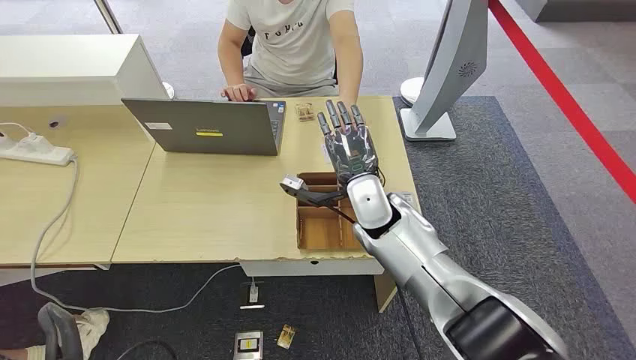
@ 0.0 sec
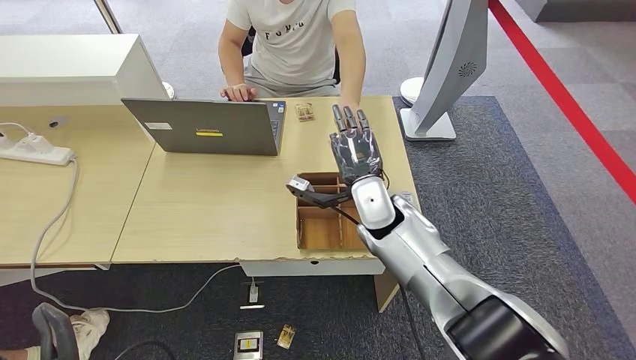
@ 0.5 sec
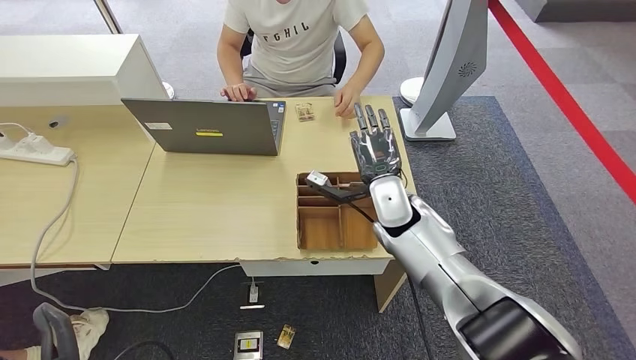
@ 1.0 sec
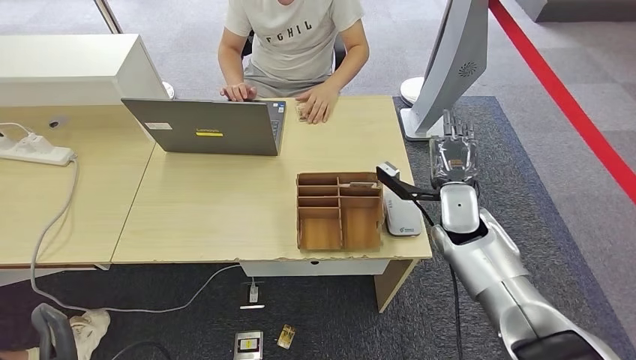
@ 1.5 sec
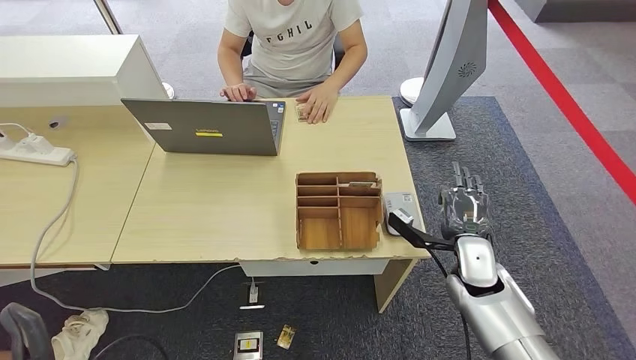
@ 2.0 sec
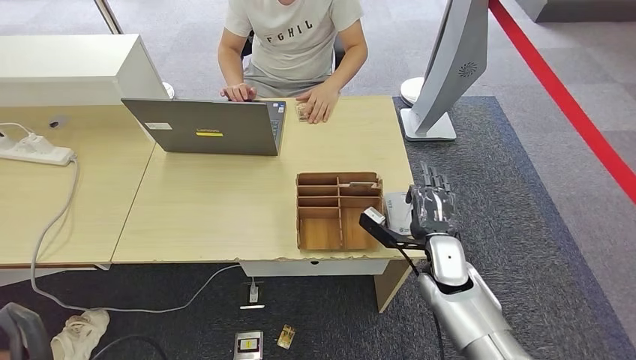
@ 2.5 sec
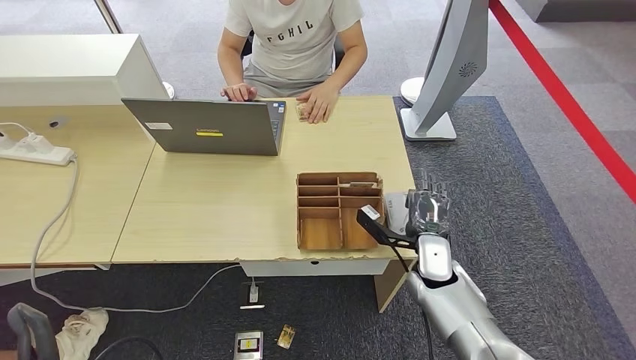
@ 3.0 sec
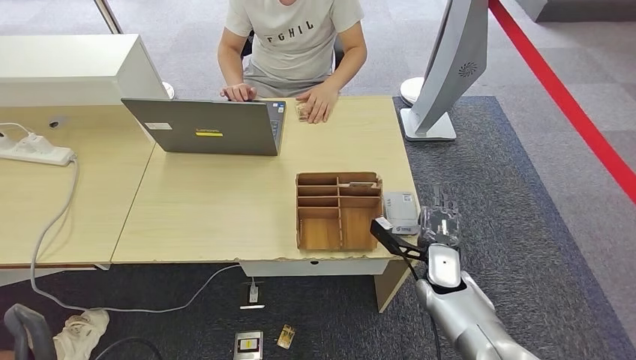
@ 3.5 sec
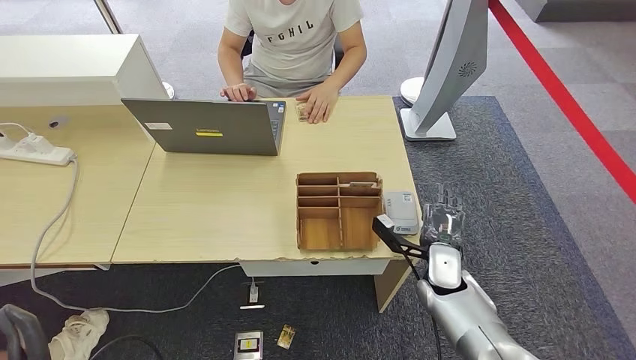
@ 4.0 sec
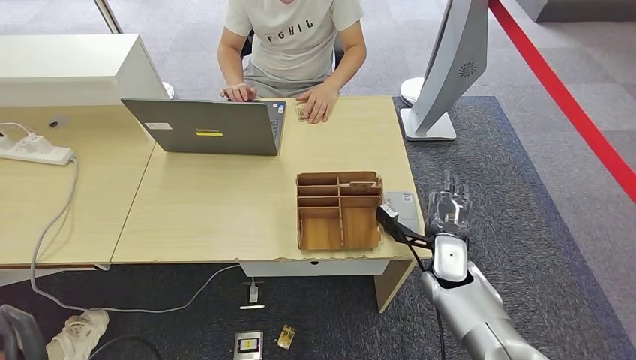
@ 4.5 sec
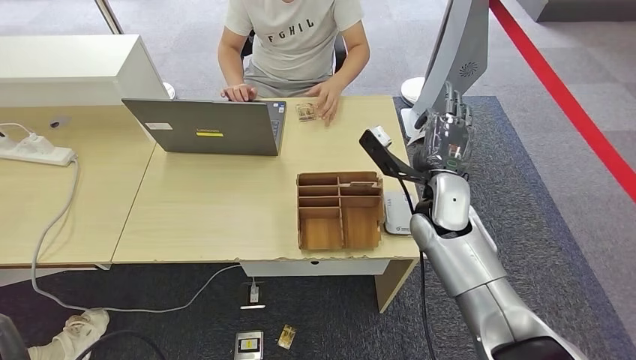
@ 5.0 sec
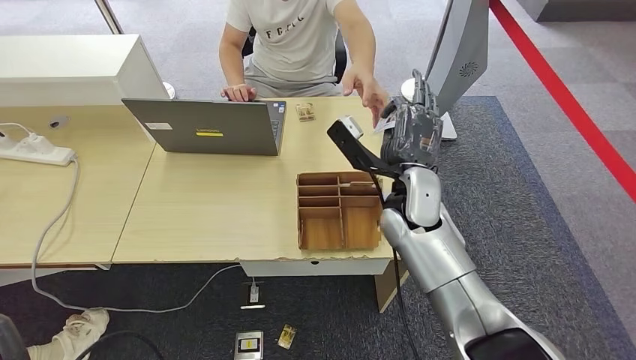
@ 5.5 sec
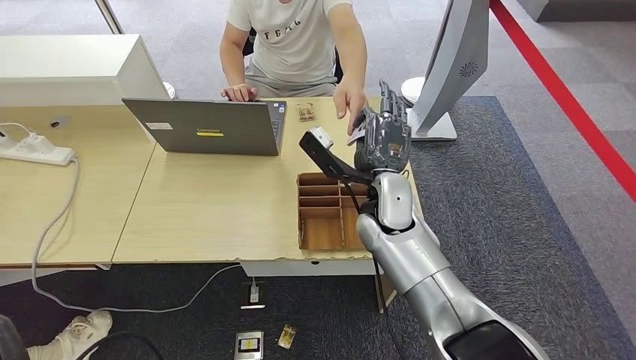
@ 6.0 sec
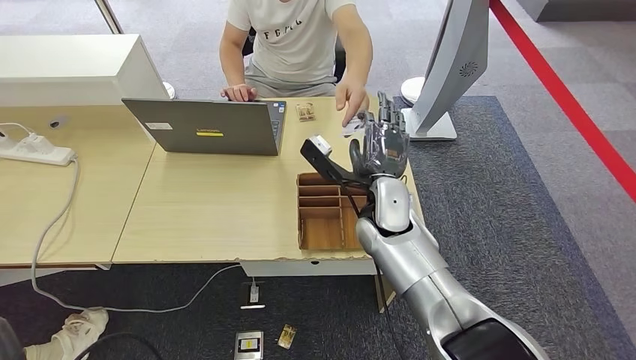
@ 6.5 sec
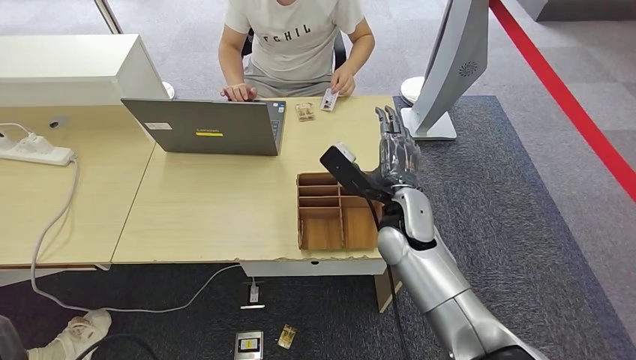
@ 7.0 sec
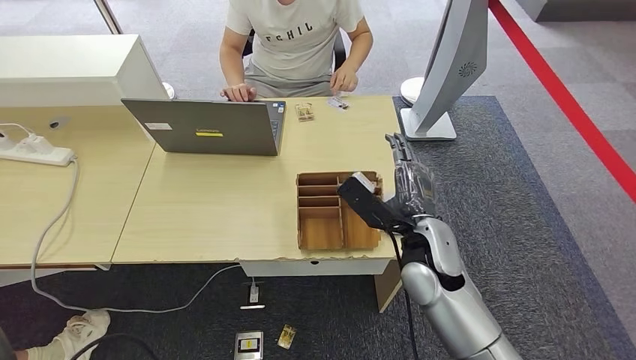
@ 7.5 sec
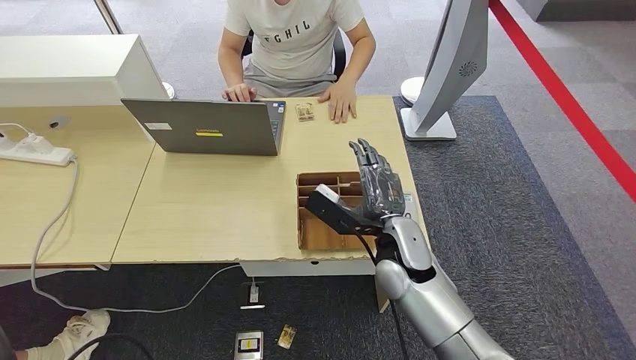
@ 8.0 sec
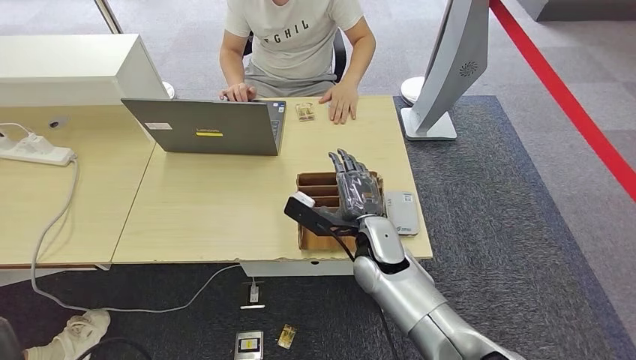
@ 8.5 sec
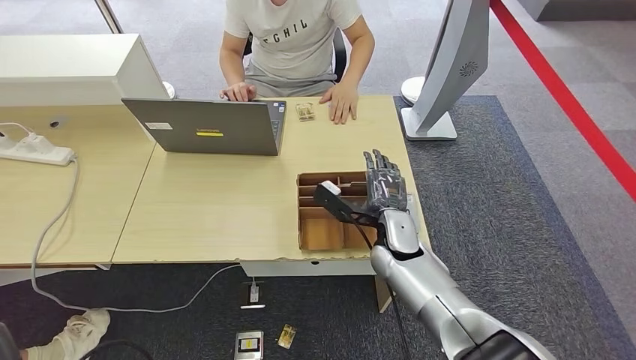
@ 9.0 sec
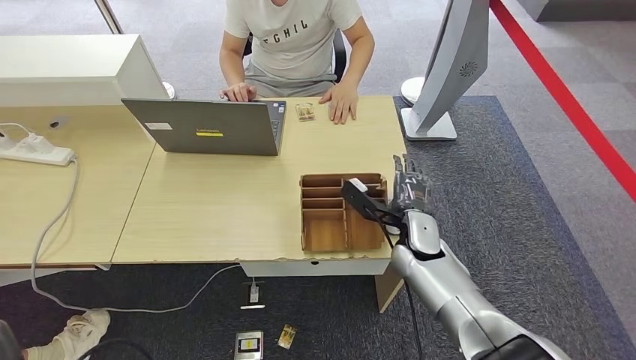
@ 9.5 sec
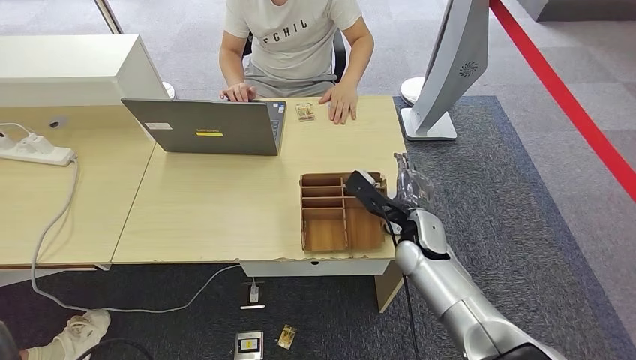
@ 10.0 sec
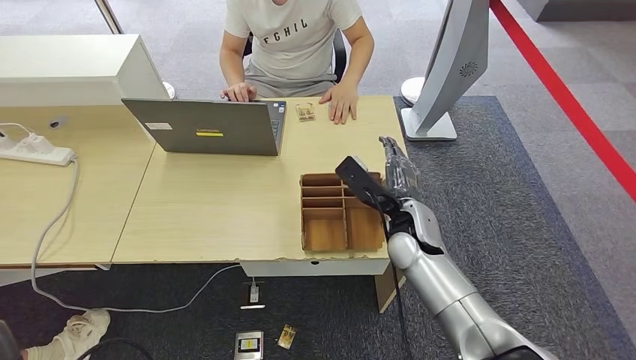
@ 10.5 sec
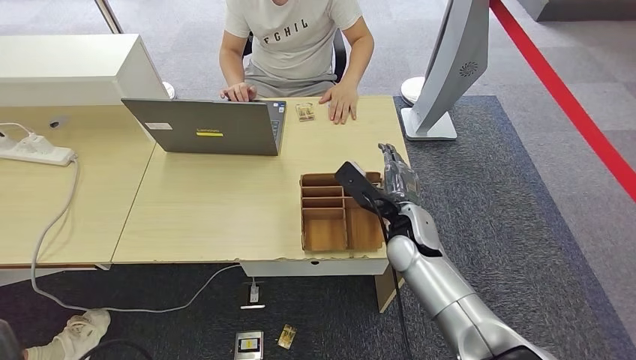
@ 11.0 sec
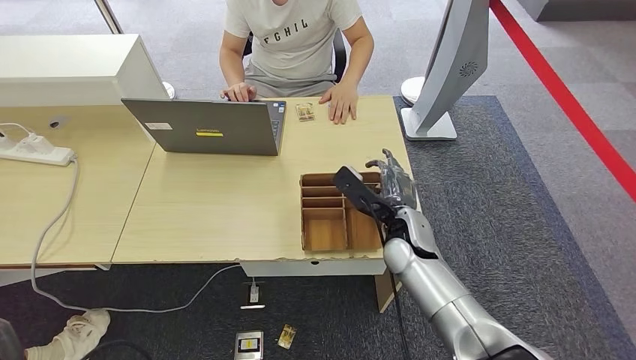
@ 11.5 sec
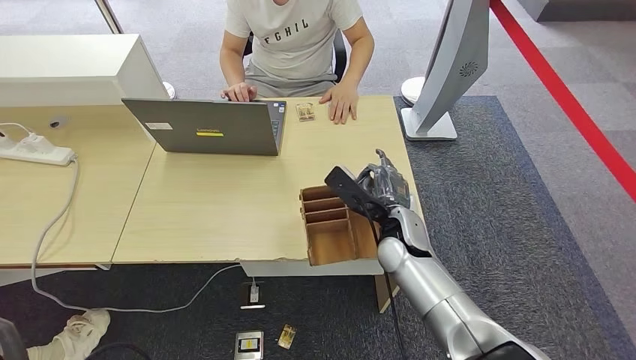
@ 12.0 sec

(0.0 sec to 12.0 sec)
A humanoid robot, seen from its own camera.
Step, 0.0 sec - 1.5 sec: Take the ID card from the person's hand.
Step, 2.0 sec - 5.0 sec: Place the ID card on the card reader.
Step, 5.5 sec - 7.0 sec: Hand the ID card to the person.
2.0 sec - 4.0 sec: The right hand moves approximately 5 cm.
4.0 sec - 6.0 sec: The right hand moves upward and to the left, about 20 cm.
6.0 sec - 8.0 sec: The right hand moves backward, approximately 5 cm.
8.0 sec - 10.0 sec: The right hand is displaced to the right by about 5 cm.
10.0 sec - 12.0 sec: The hands make only small movements.

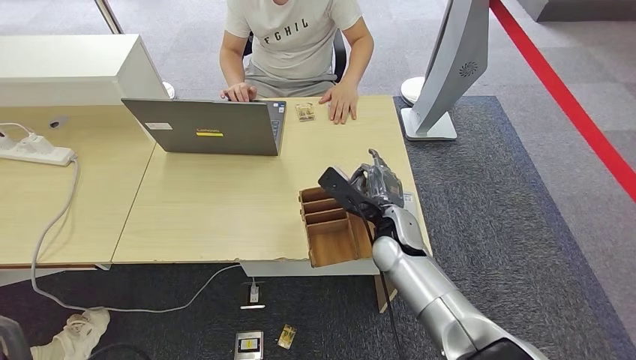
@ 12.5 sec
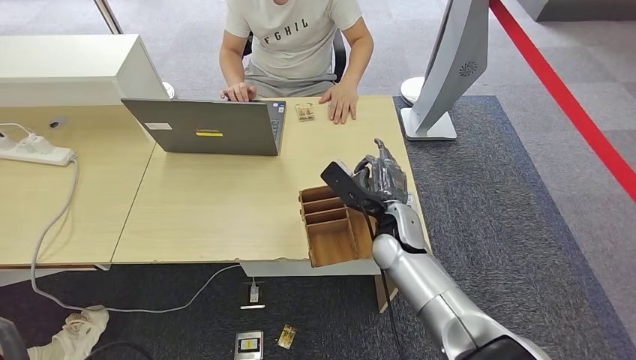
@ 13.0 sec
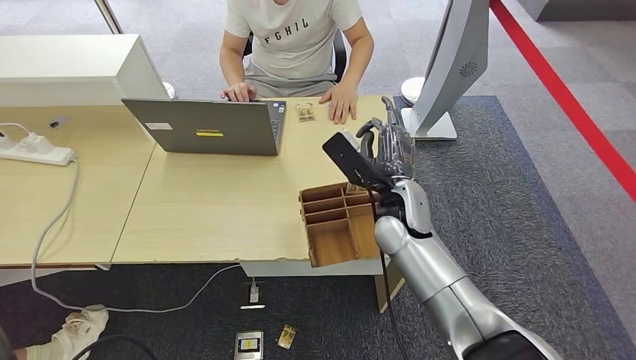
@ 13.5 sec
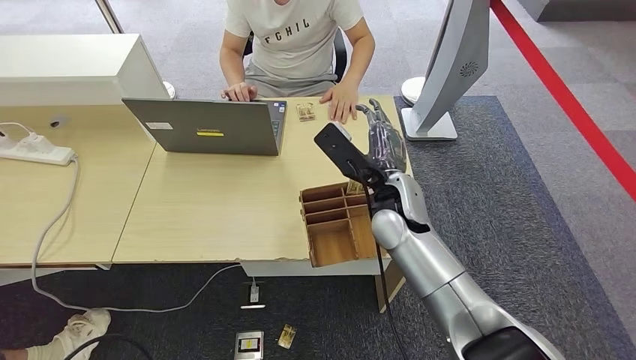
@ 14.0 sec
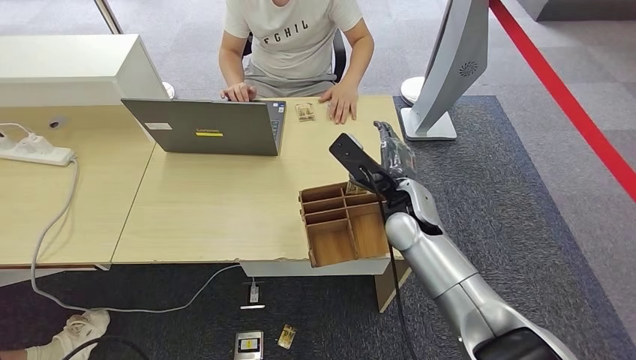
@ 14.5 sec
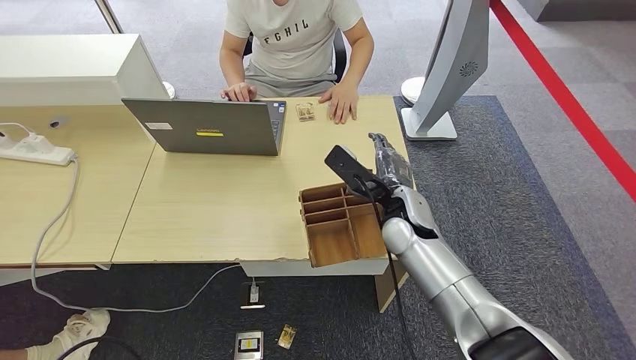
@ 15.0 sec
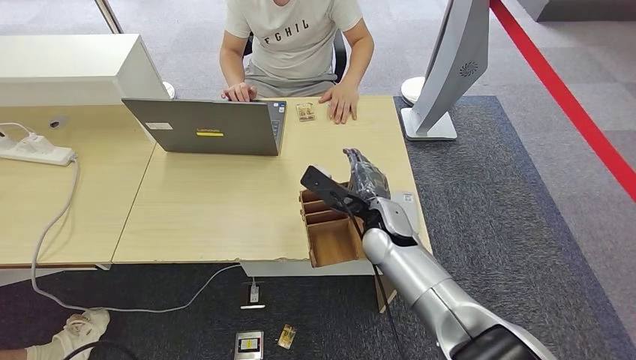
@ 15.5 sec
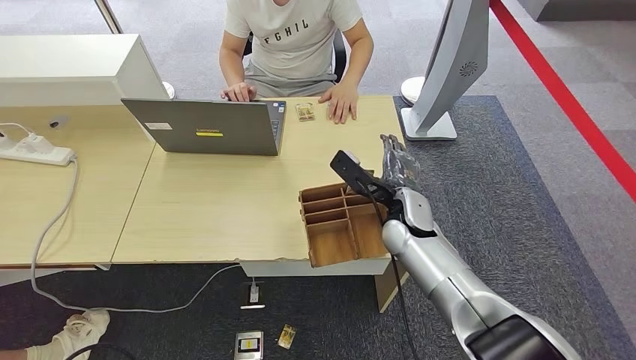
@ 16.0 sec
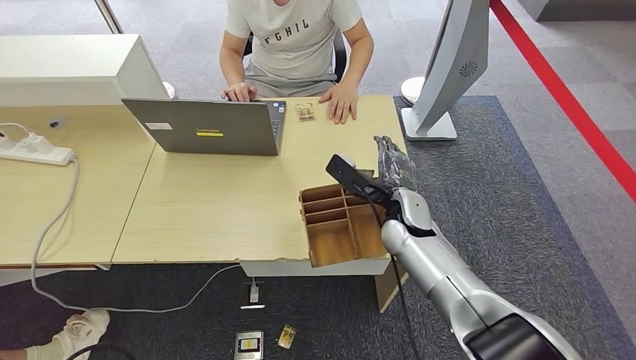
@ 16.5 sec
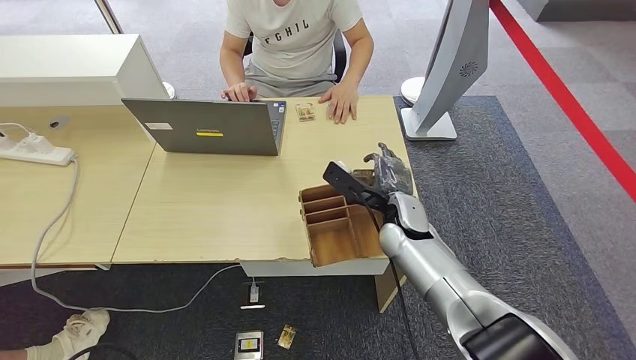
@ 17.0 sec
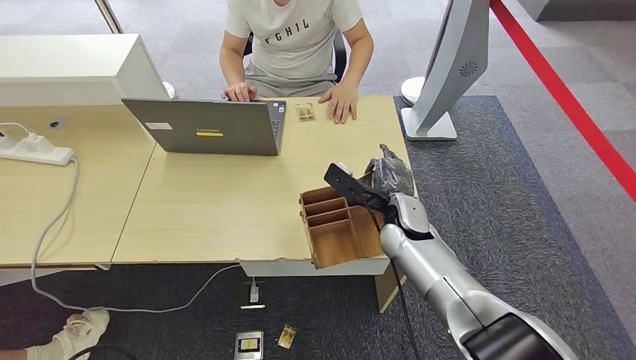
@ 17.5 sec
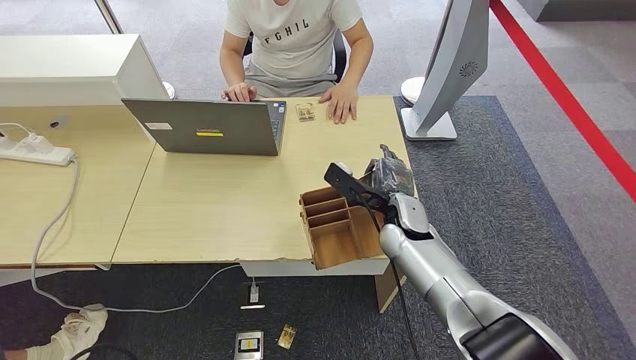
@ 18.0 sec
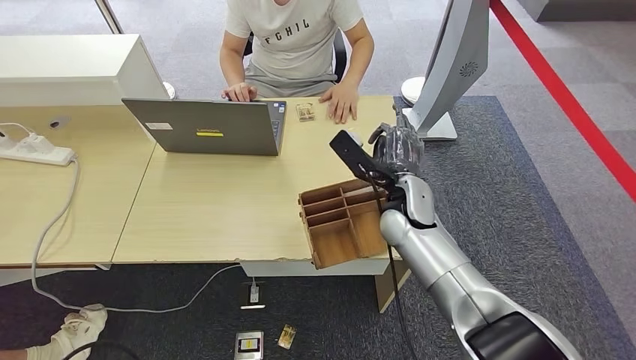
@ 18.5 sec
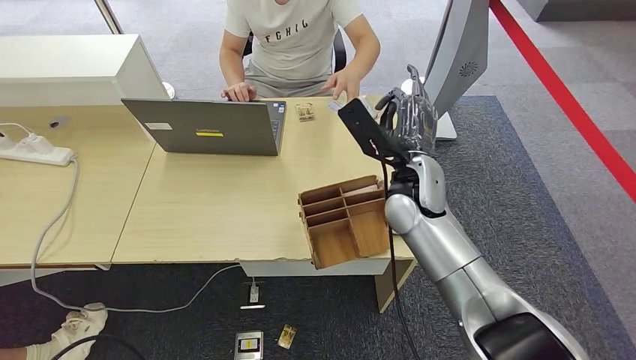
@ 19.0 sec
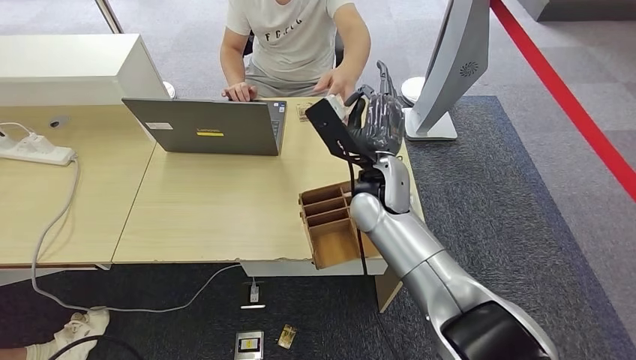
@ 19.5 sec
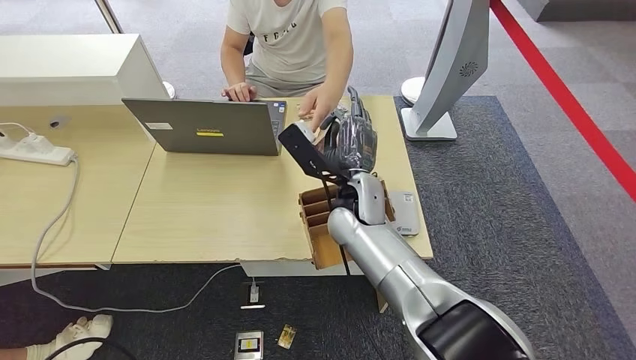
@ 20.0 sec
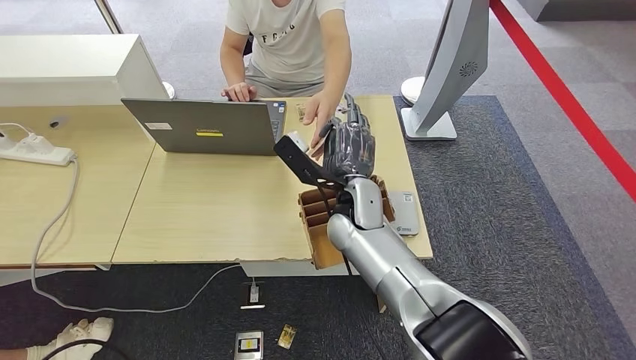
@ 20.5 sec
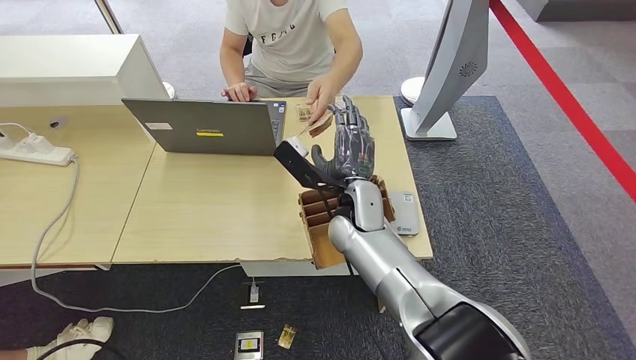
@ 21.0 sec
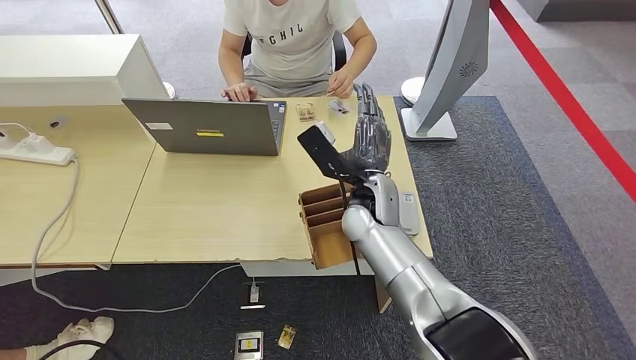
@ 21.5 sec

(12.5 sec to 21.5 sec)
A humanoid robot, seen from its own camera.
Step, 18.0 sec - 19.0 sec: Pick up the room key from the key card box.
Step, 19.5 sec - 21.5 sec: Hand the room key to the person.
12.5 sec - 14.5 sec: The right hand shifts some 5 cm upward.
14.5 sec - 17.0 sec: The right hand moves roughly 5 cm.
17.0 sec - 19.5 sec: The right hand moves upward and to the left, some 10 cm.
